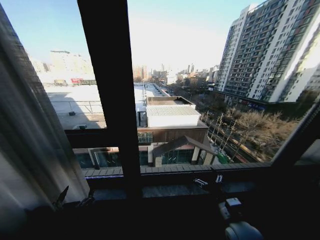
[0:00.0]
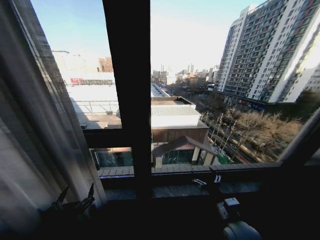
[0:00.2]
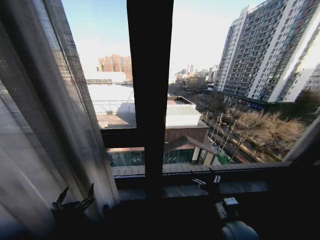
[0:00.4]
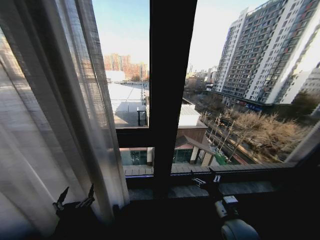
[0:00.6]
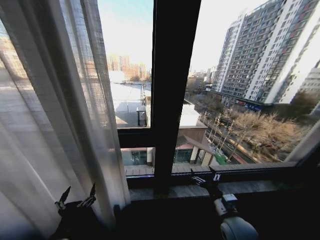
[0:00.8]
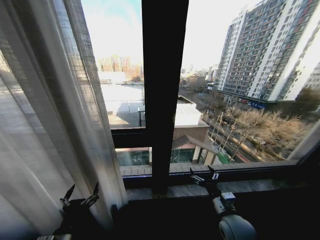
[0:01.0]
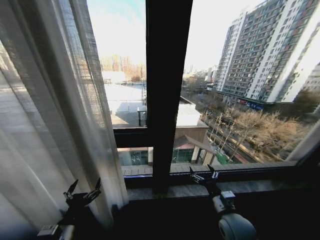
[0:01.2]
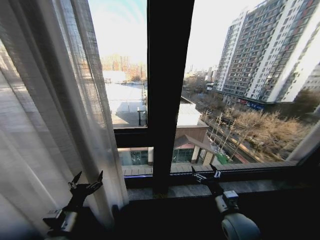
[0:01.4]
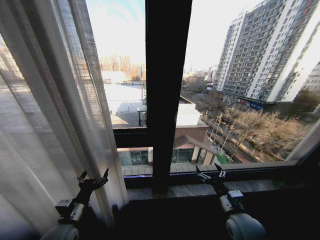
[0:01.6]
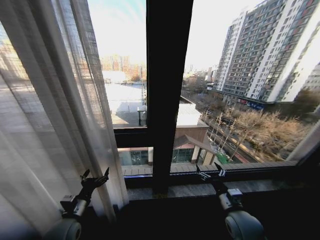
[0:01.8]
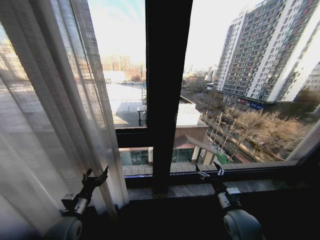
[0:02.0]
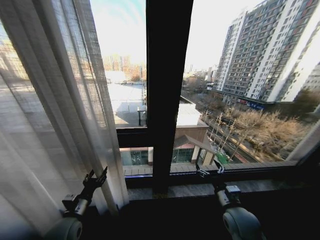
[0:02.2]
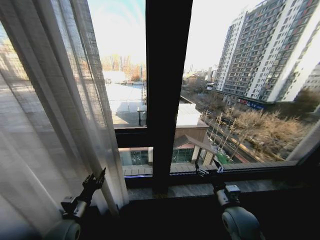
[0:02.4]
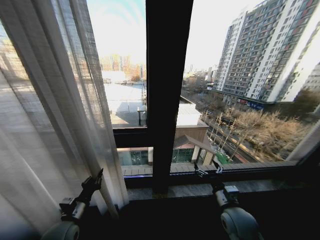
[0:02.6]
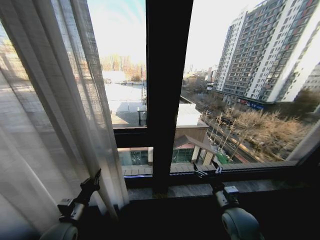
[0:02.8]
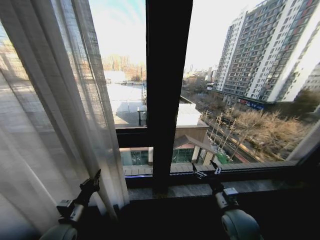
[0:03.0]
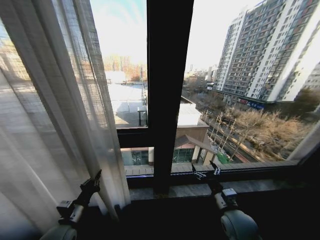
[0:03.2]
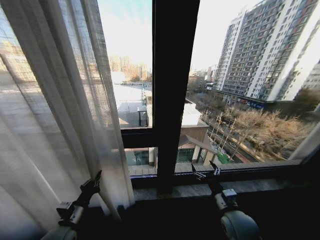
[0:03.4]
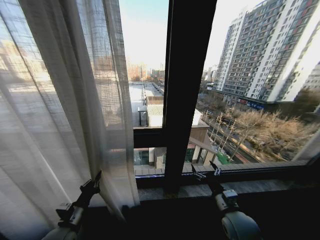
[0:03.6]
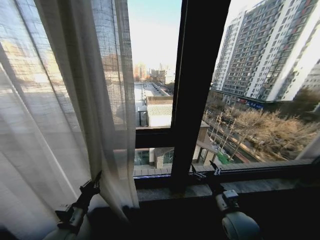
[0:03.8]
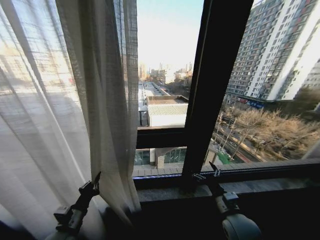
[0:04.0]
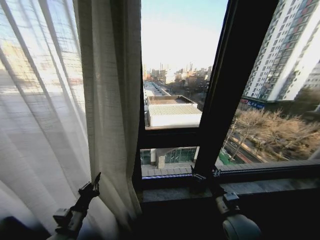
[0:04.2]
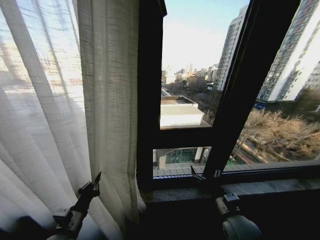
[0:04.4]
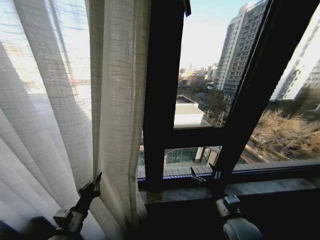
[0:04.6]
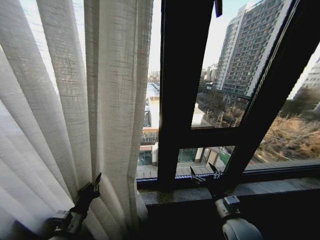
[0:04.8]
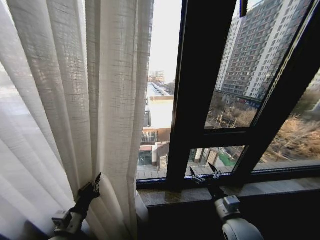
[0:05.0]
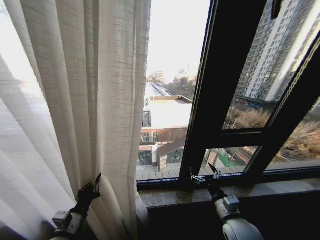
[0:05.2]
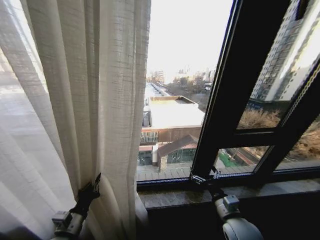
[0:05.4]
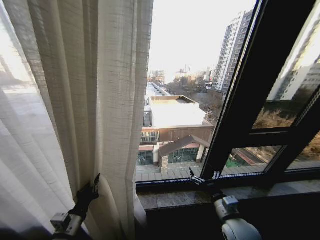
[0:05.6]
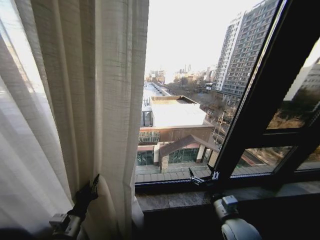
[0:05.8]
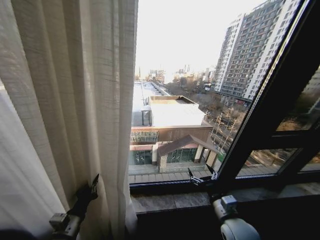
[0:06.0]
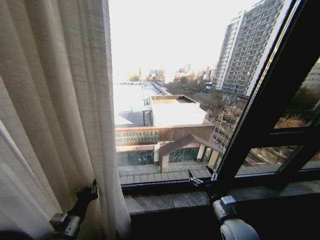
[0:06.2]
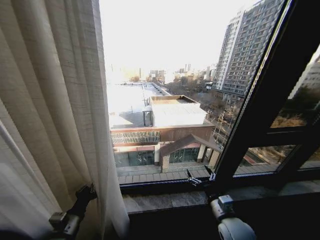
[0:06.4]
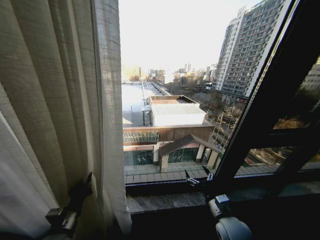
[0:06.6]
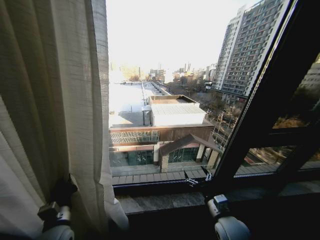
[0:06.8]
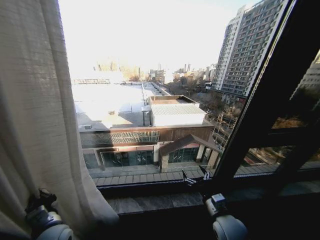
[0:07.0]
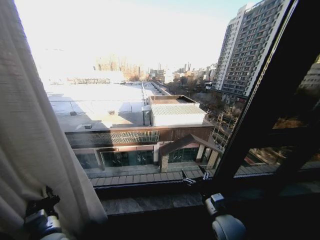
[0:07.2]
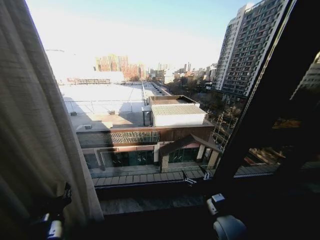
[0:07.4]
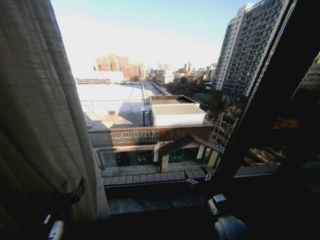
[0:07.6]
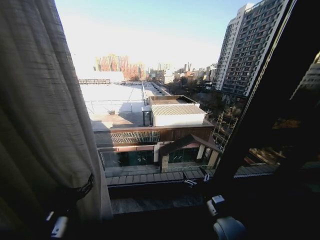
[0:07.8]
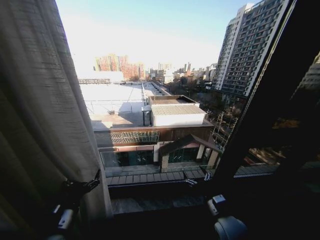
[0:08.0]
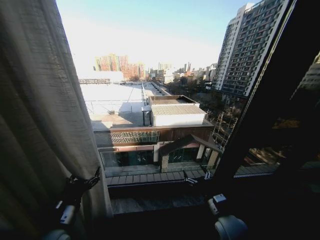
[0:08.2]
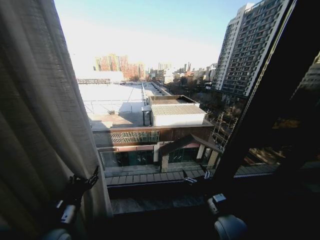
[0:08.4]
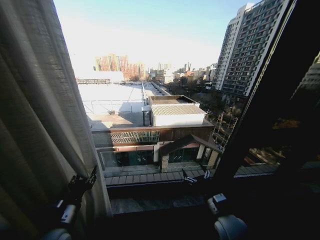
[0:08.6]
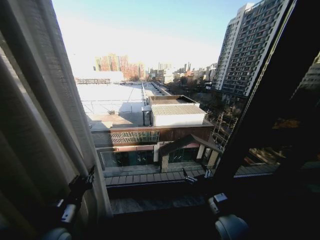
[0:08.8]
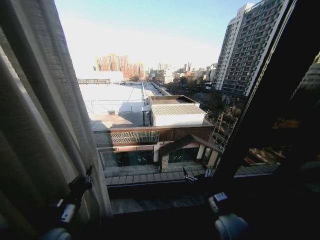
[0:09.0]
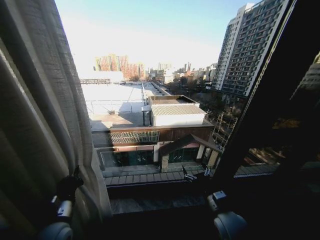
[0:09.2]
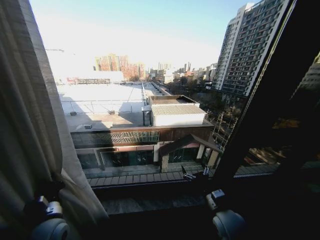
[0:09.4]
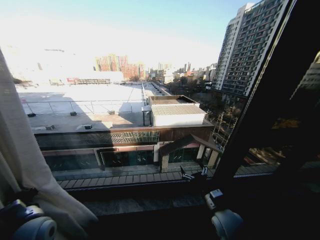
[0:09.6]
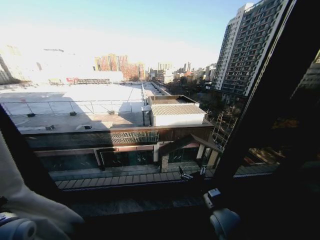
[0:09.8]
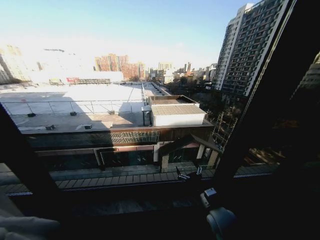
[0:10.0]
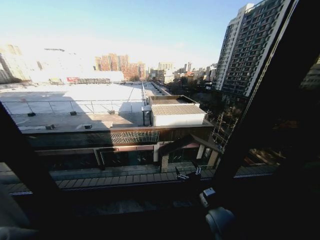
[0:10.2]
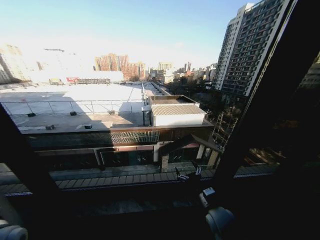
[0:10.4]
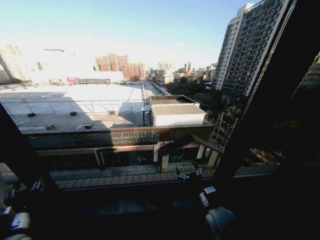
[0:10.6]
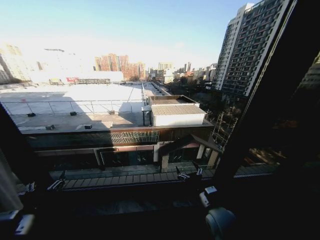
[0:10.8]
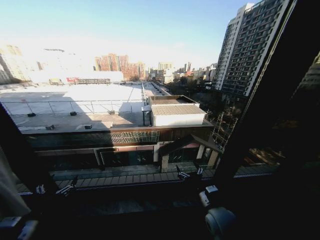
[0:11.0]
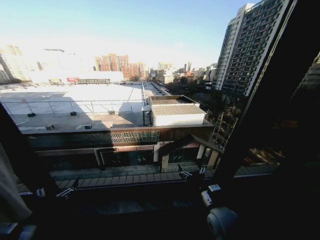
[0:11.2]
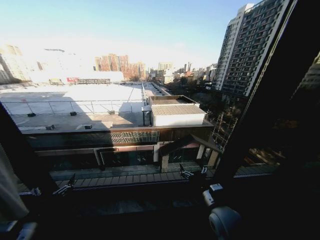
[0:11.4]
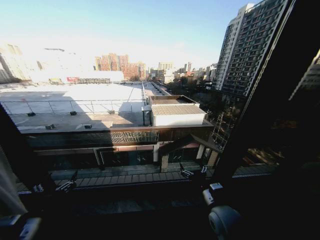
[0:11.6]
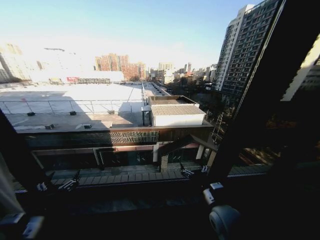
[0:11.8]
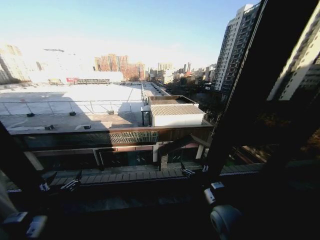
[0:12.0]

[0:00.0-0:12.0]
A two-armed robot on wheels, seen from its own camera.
Task of the whole recording: Open the curtains by pulling them apart, changing their state from closed to fully open.
0:00.0 to 0:01.6: The left gripper moves forward, approximately 10 cm.
0:01.6 to 0:03.0: The left gripper closes up.
0:06.0 to 0:07.6: The left gripper shifts about 5 cm upward, and opens.
0:07.6 to 0:09.0: The left gripper closes.
0:09.0 to 0:10.4: The left gripper shifts roughly 15 cm to the left.
0:10.4 to 0:12.0: The left gripper goes some 10 cm to the right, and opens its fingers.

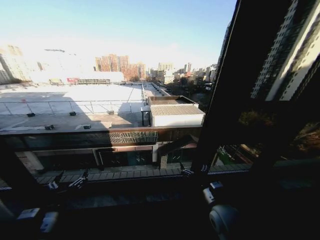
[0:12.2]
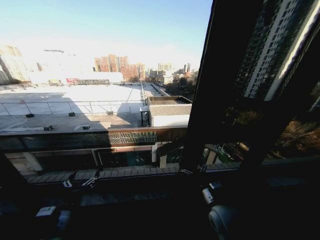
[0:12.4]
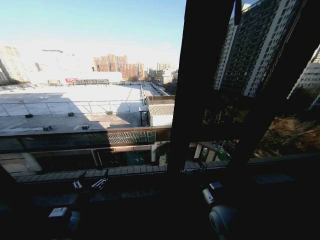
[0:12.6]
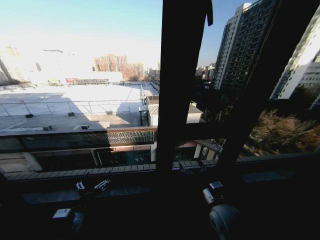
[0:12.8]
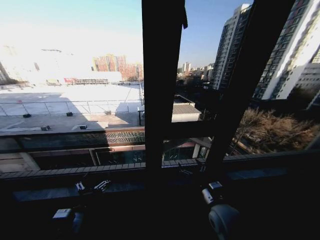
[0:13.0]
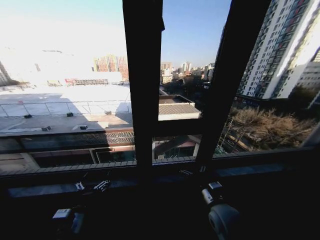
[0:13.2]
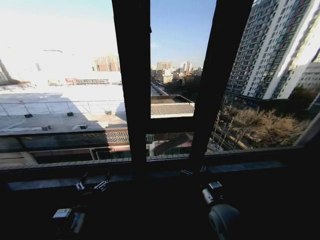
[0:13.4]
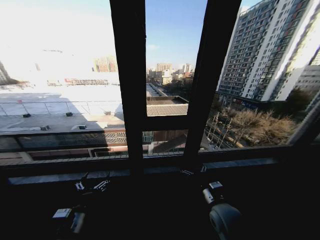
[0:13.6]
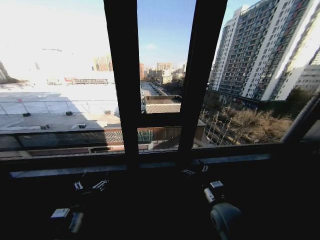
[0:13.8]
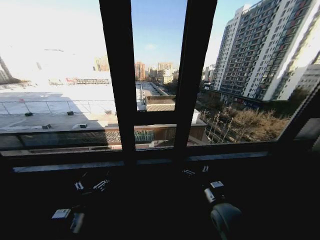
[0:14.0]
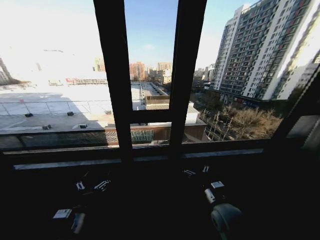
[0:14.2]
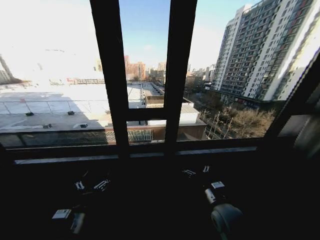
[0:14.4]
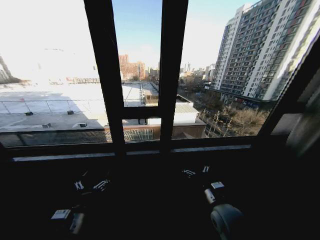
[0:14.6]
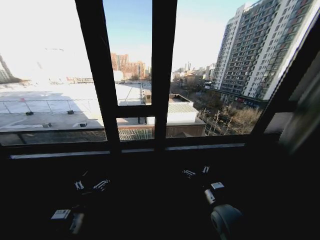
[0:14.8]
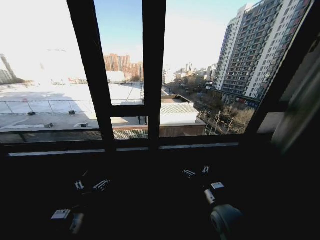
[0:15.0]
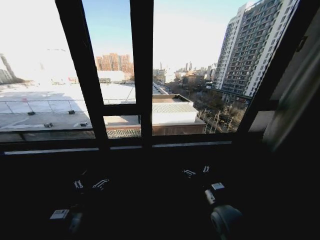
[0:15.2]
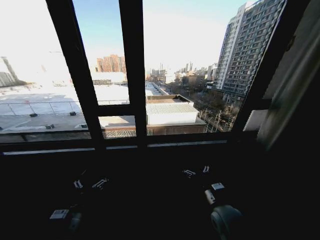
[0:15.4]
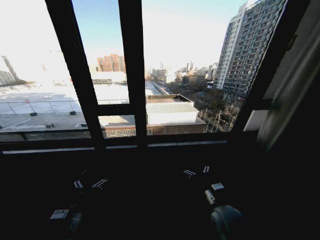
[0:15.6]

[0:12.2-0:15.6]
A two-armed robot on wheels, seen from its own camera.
Task of the whole recording: Open the curtains by pulling them apart, changing their state from closed to fully open.
0:12.2 to 0:13.8: The left gripper heads to the right, covering some 5 cm.

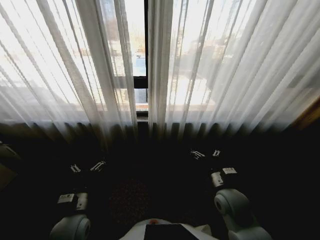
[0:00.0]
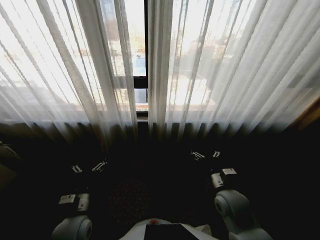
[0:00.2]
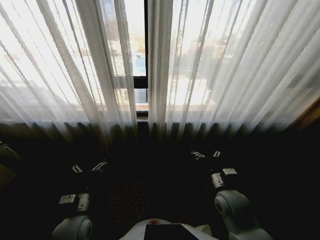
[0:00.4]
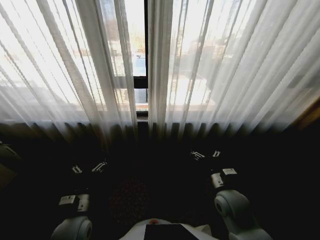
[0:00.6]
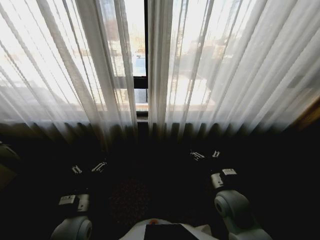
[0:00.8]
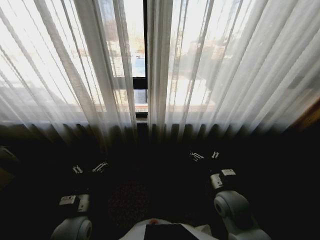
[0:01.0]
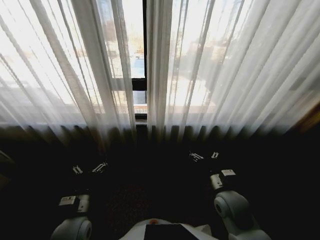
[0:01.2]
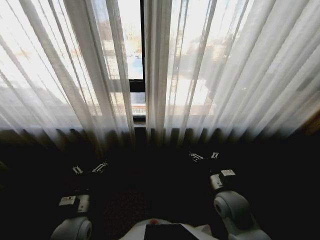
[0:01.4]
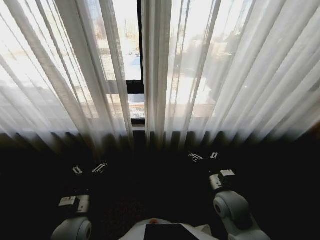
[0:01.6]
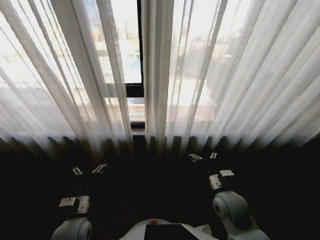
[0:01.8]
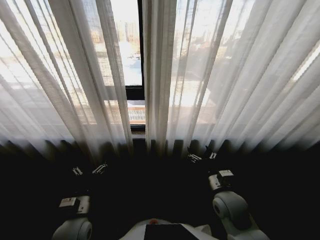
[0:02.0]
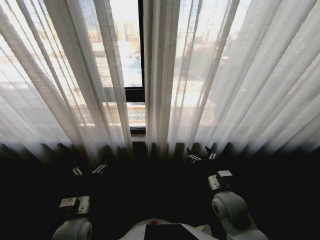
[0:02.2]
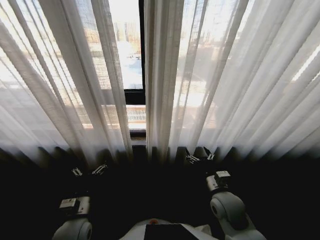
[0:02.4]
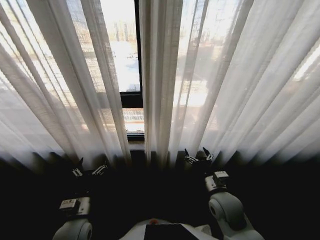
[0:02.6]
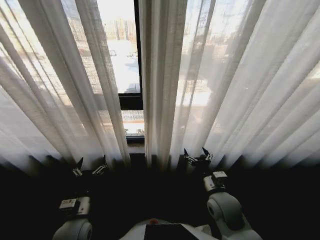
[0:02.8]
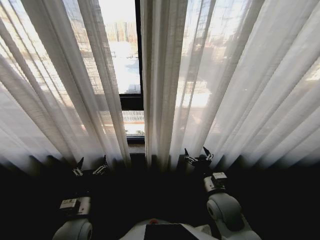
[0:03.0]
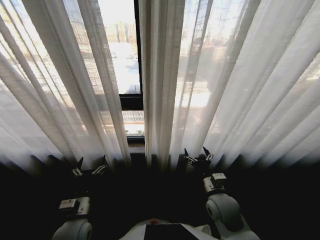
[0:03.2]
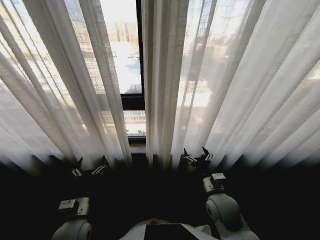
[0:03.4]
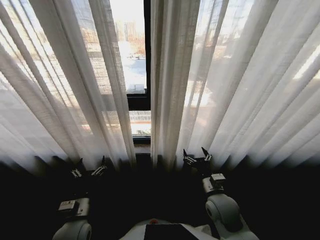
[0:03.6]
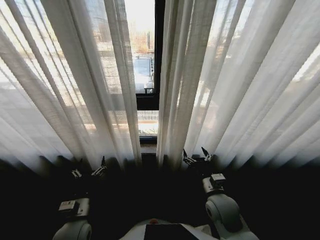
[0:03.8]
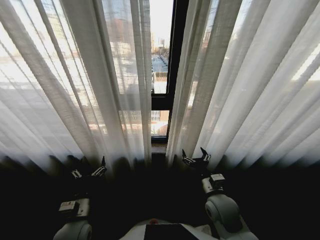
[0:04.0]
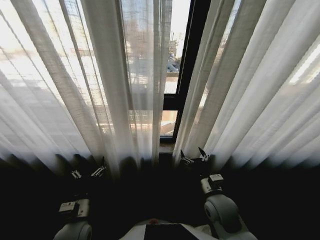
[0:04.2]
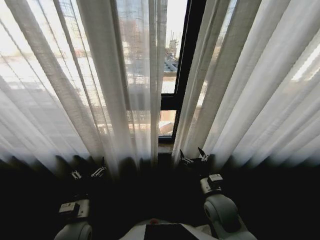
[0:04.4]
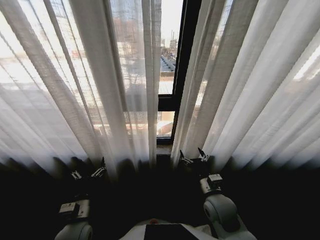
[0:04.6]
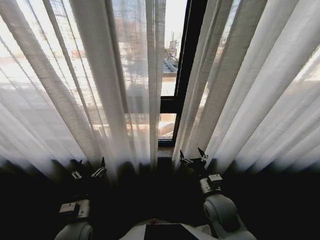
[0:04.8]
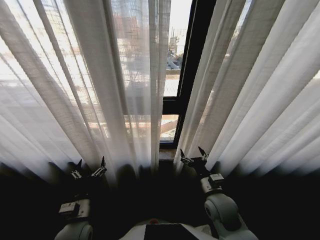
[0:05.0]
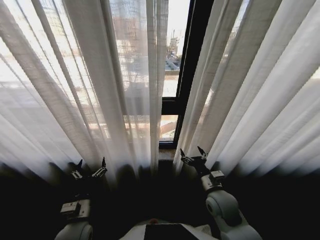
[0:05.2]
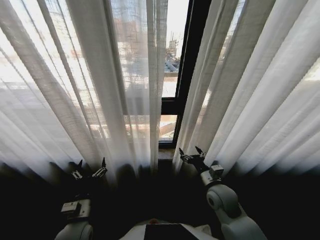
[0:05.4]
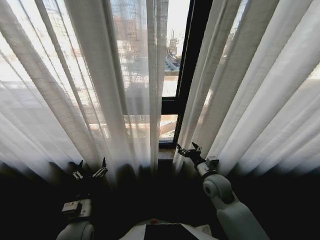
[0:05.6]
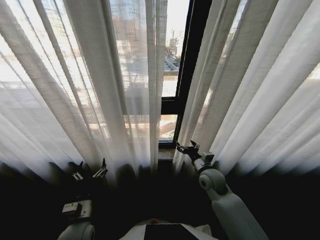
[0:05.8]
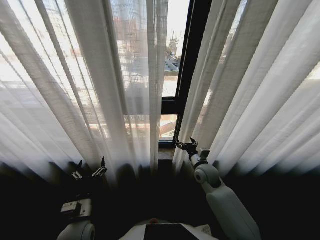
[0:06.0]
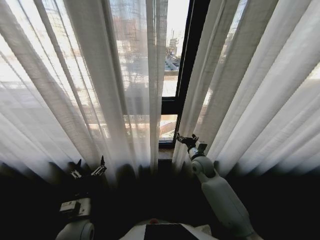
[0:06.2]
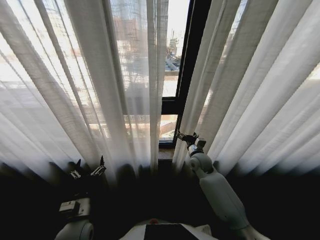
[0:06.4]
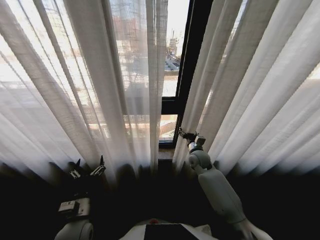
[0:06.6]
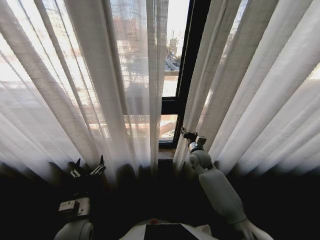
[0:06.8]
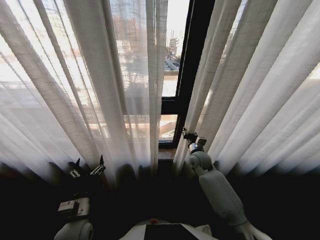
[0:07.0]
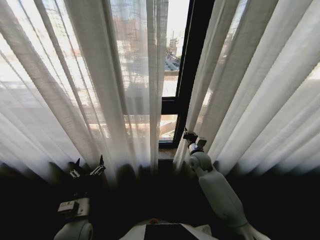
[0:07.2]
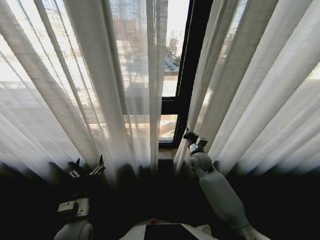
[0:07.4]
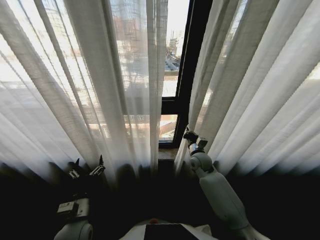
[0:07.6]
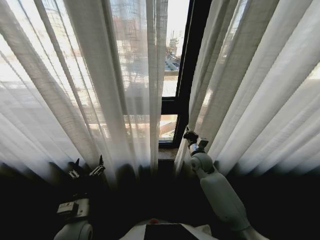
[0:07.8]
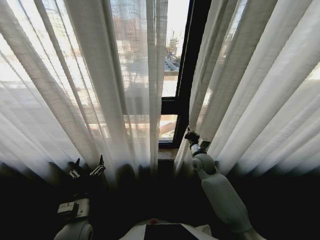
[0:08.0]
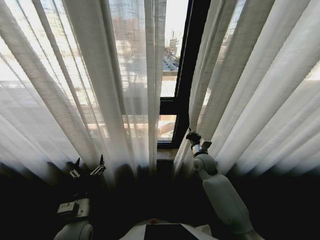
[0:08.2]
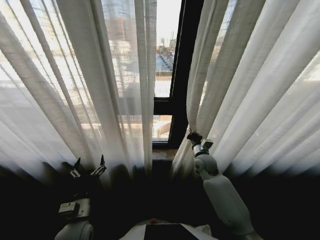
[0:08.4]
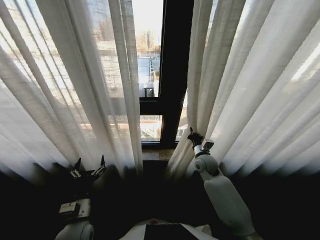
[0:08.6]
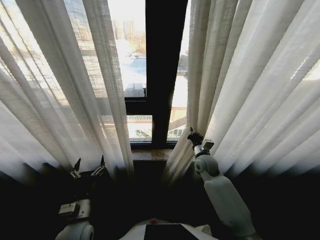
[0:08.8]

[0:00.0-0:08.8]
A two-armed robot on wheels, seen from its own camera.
Task of the whole recording: Open the curtains by pulling them apart, changing their state from closed to fully open.
0:04.4 to 0:05.8: The right gripper travels forward by some 10 cm.
0:05.8 to 0:07.4: The right gripper shifts approximately 10 cm forward, and closes up.
